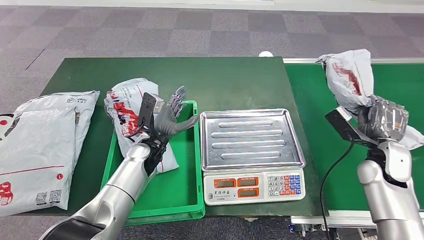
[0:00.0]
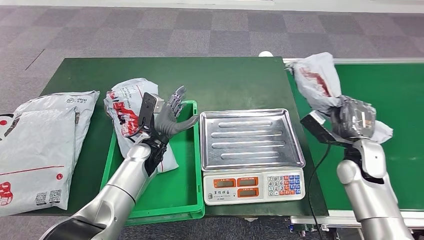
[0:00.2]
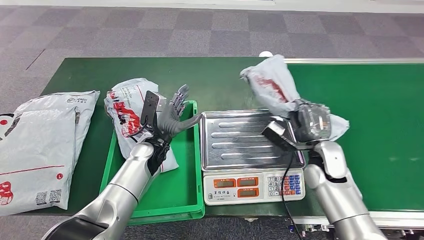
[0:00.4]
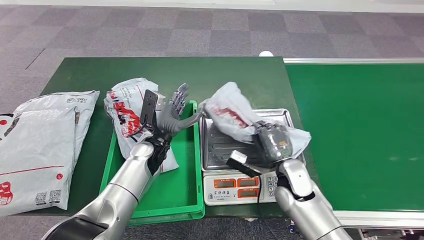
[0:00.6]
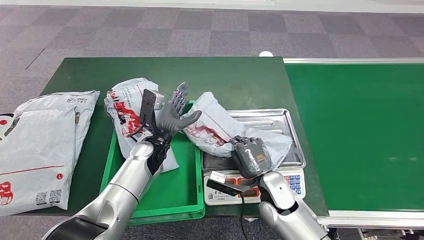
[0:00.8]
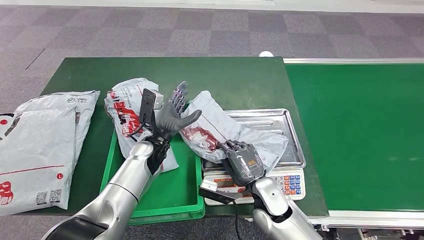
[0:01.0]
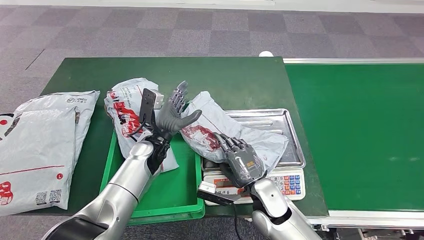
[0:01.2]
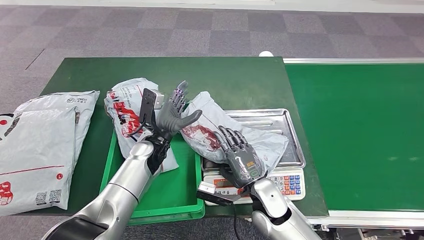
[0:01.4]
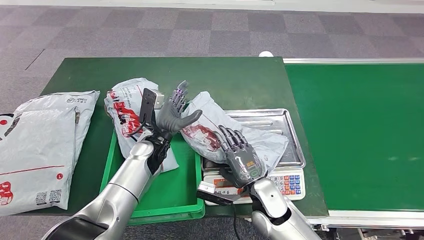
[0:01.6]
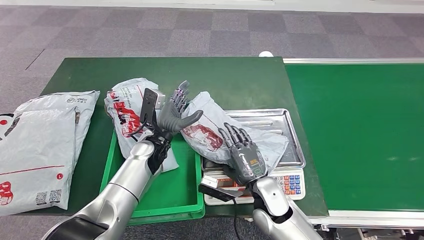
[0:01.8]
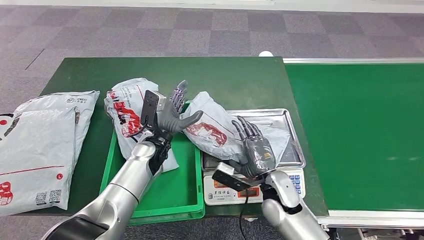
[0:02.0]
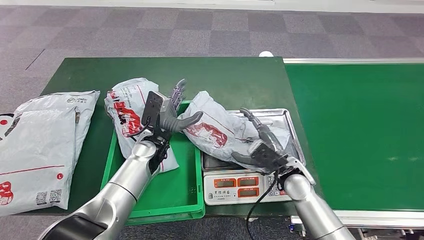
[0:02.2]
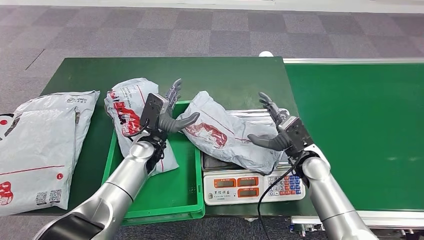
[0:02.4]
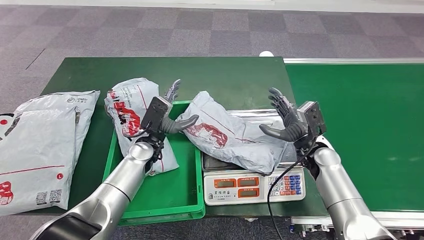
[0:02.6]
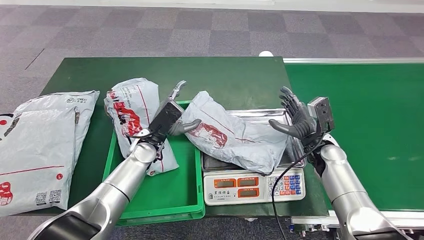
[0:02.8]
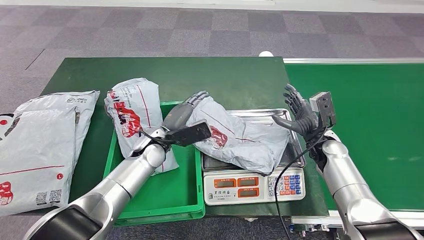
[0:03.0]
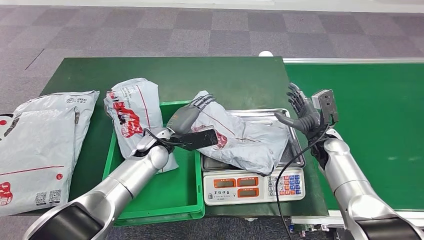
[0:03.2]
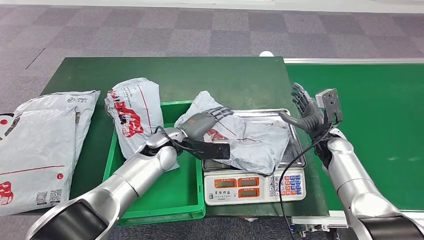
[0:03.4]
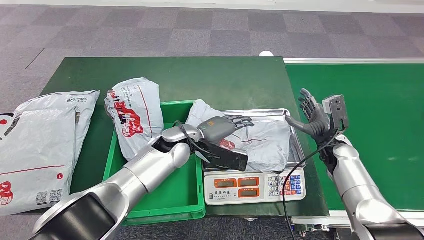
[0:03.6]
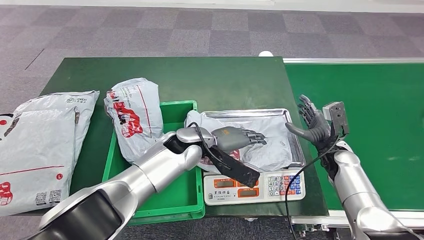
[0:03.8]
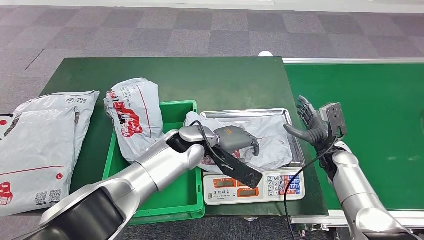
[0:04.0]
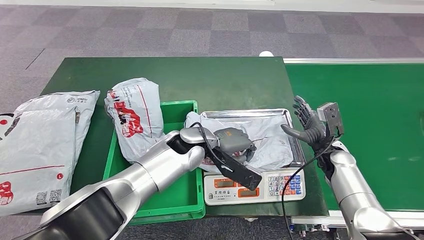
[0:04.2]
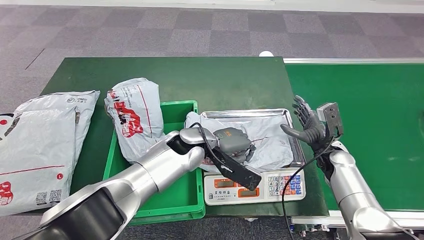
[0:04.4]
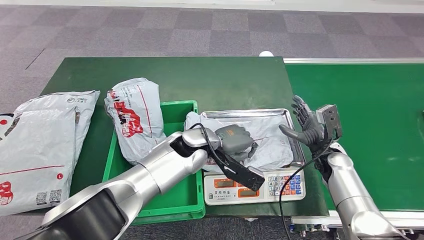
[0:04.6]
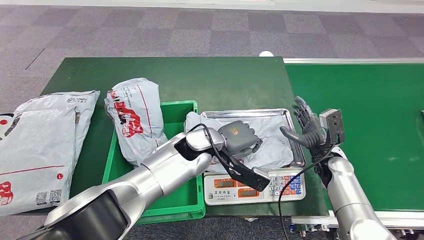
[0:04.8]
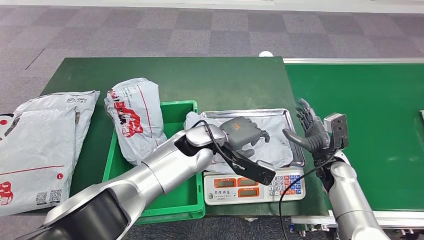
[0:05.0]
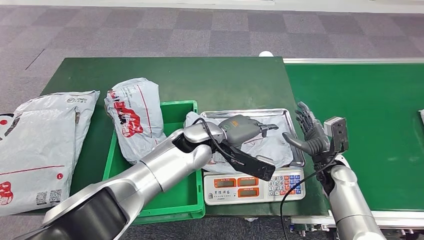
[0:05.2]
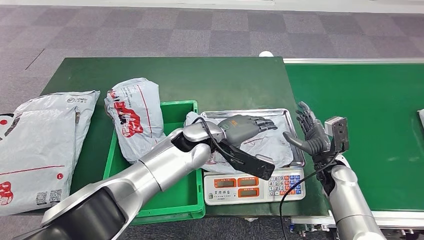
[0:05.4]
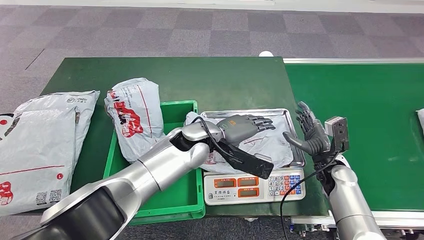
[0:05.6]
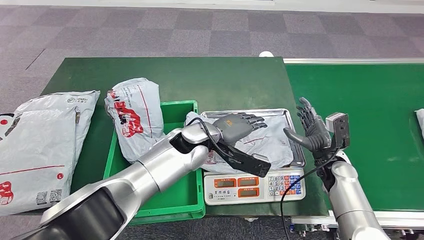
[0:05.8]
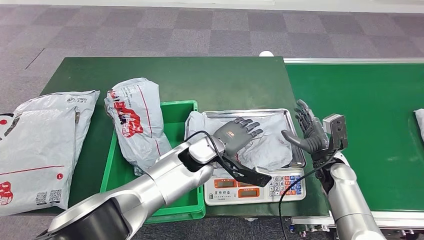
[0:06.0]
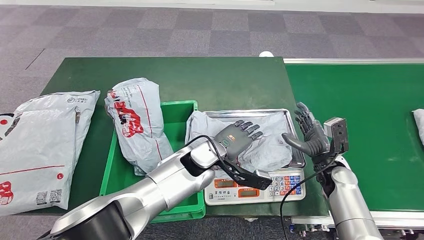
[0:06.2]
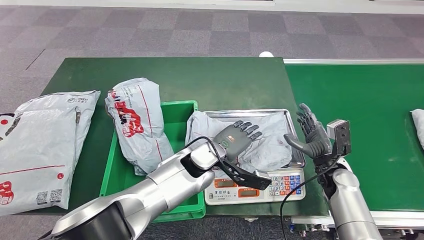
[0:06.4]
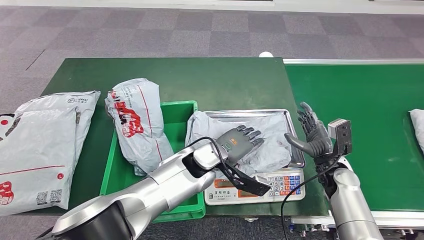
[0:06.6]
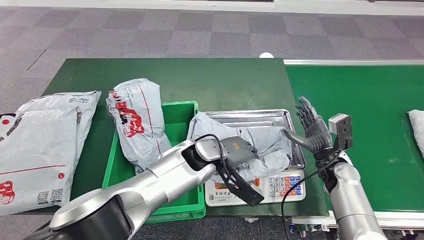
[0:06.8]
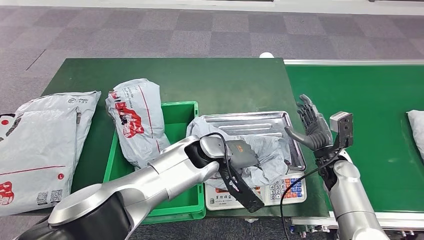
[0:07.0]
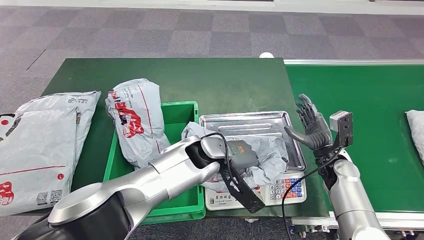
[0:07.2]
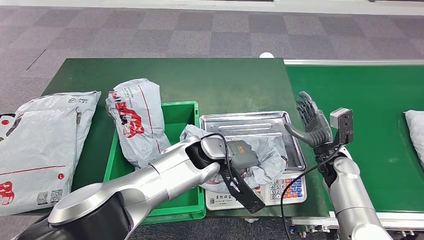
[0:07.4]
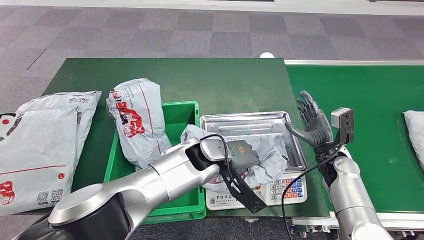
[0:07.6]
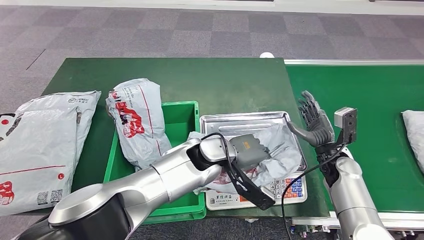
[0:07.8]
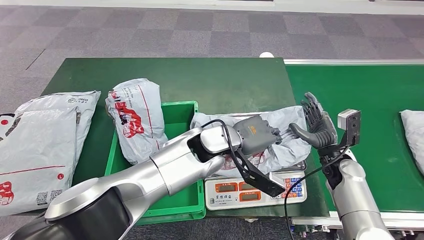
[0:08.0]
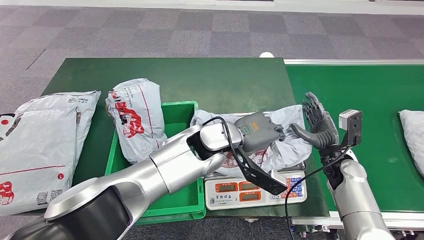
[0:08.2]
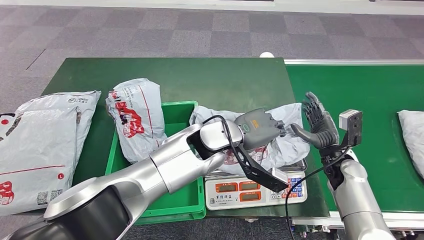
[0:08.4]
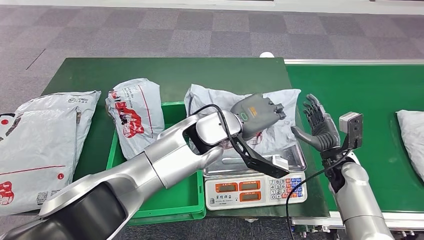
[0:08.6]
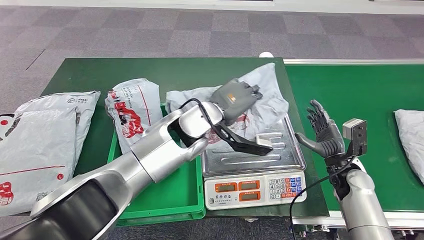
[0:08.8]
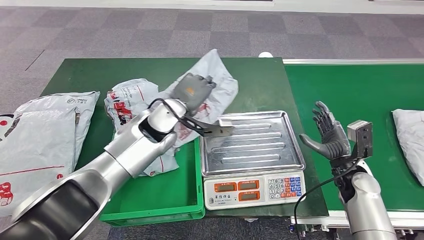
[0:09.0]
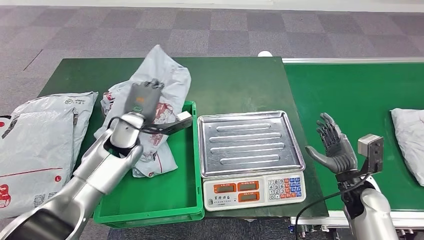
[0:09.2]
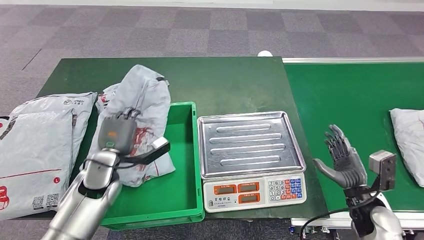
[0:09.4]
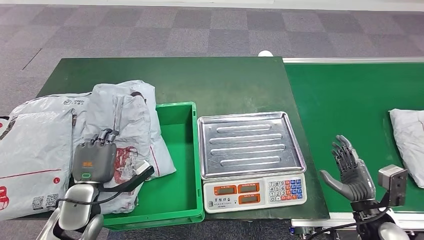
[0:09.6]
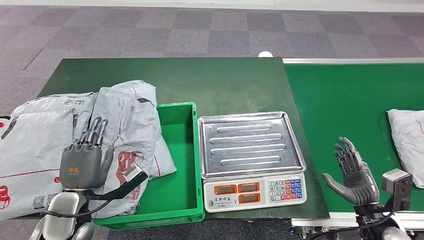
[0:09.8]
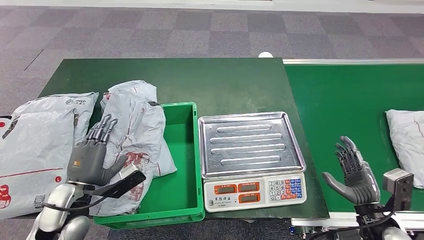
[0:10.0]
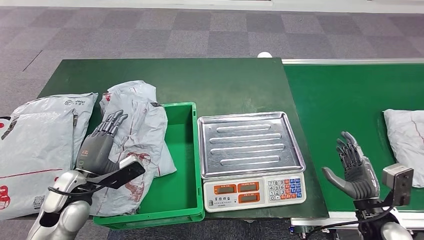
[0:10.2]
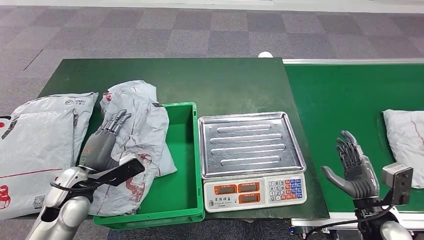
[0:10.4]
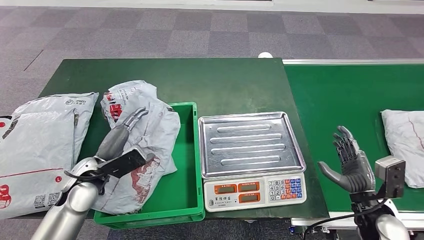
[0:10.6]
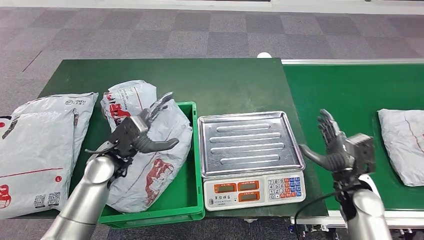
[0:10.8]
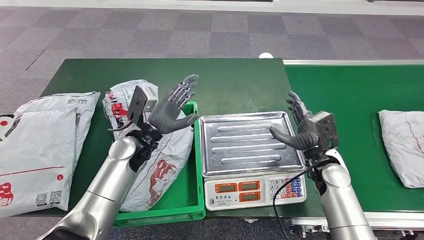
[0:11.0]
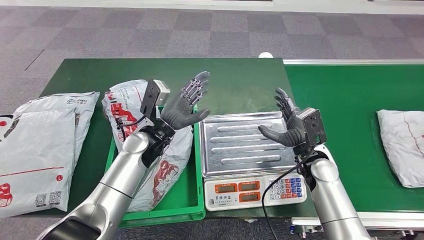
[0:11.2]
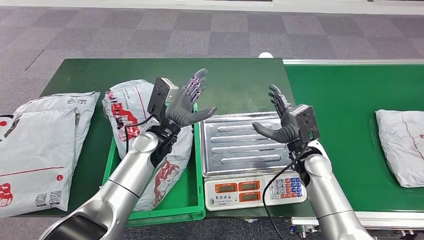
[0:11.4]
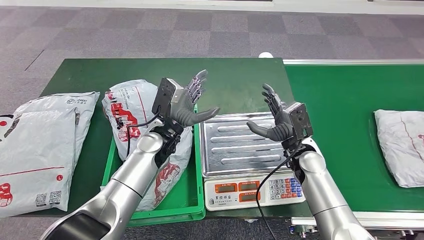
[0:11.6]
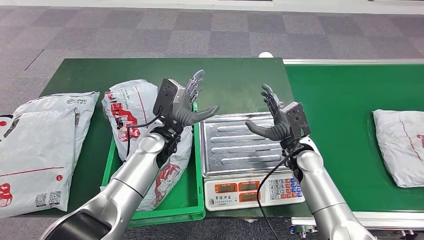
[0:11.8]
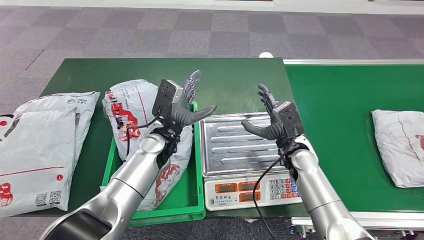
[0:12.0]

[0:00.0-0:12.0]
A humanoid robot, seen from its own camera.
Step, 0.0 to 1.6 s: Place the parcel onto the inbound machine.
Step, 2.0 to 9.0 s: Pick up the parcel from the inbound machine.
Step, 9.2 to 11.0 s: Place the parcel into the delivery box.
3.0 to 4.4 s: The left hand is displaced to the right by roughly 10 cm.

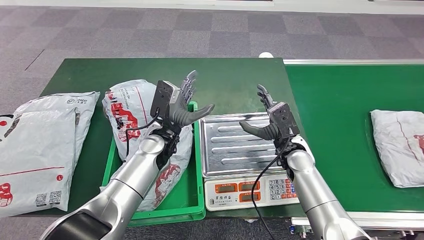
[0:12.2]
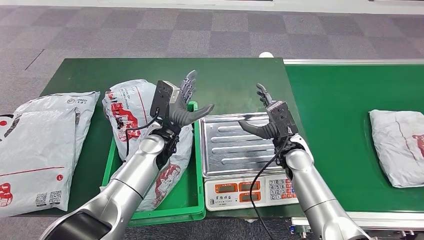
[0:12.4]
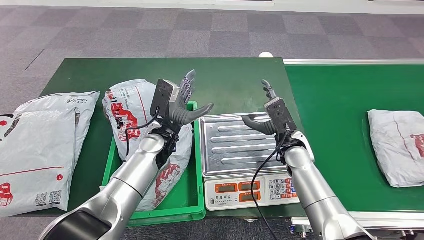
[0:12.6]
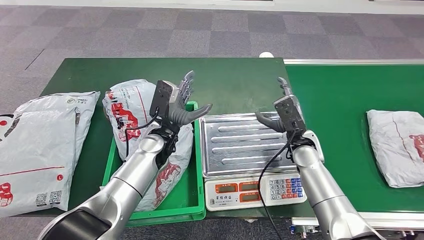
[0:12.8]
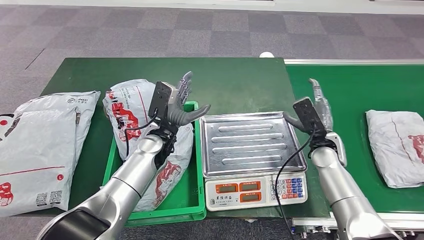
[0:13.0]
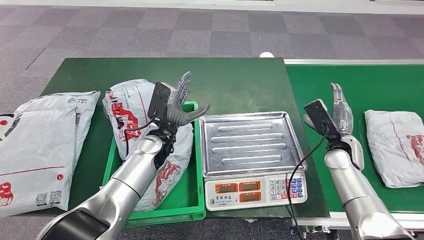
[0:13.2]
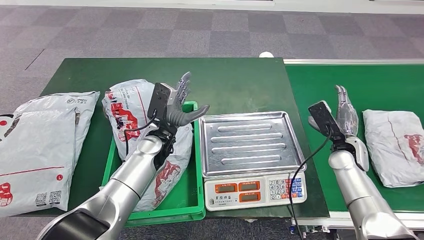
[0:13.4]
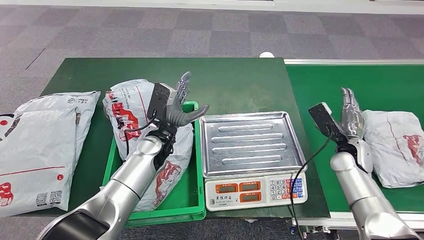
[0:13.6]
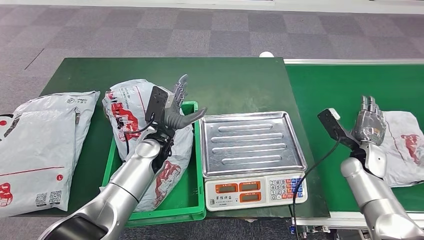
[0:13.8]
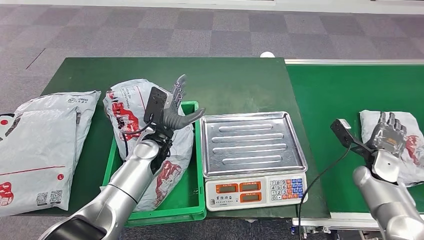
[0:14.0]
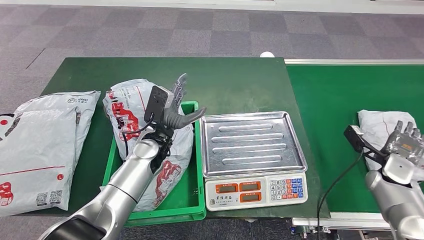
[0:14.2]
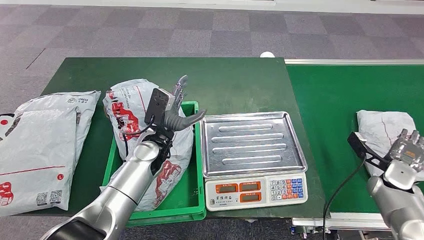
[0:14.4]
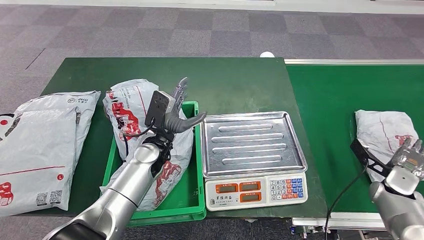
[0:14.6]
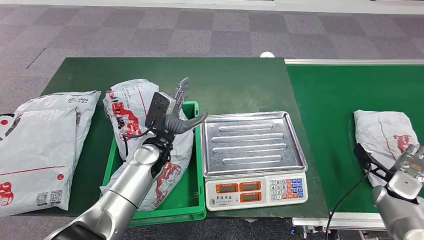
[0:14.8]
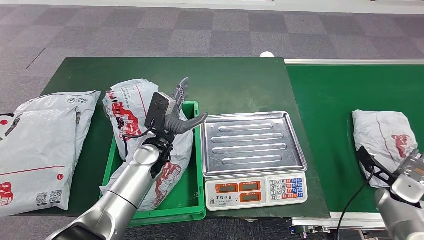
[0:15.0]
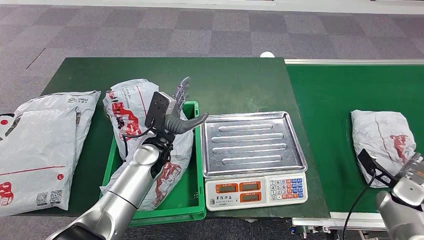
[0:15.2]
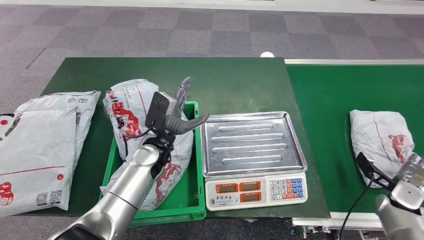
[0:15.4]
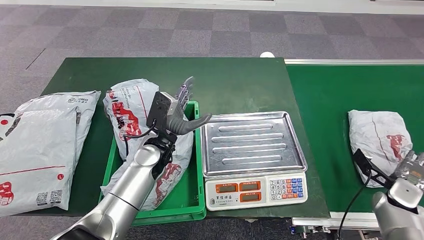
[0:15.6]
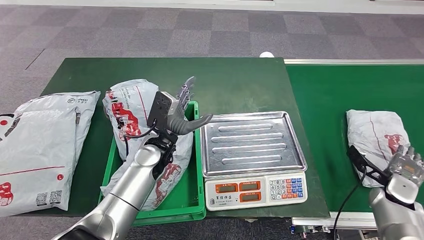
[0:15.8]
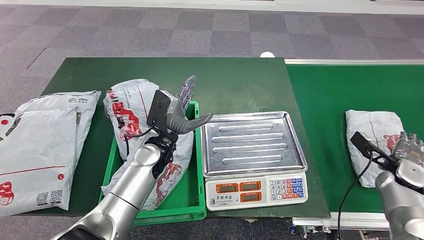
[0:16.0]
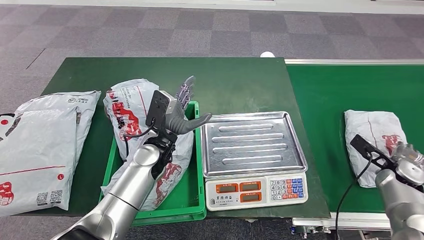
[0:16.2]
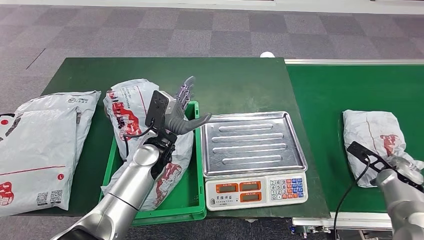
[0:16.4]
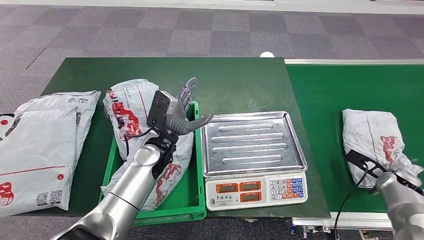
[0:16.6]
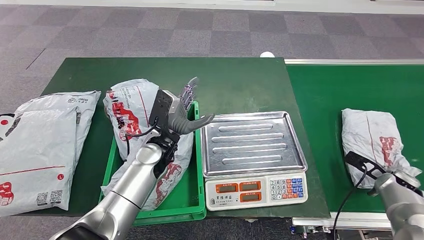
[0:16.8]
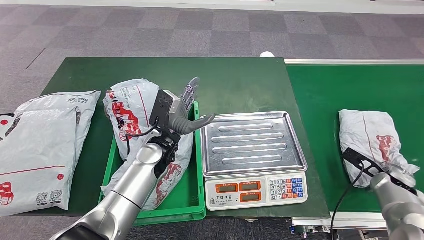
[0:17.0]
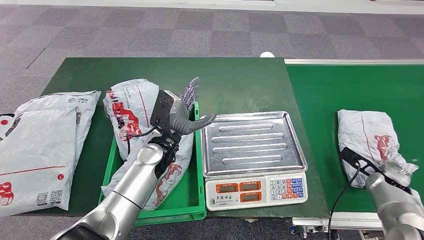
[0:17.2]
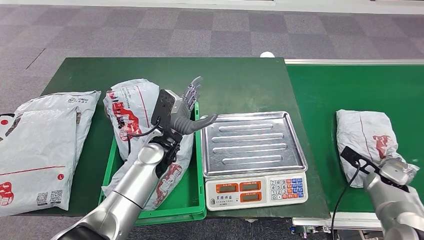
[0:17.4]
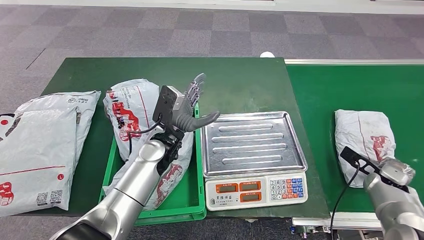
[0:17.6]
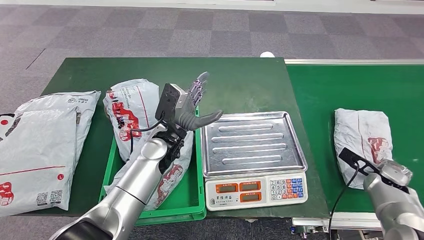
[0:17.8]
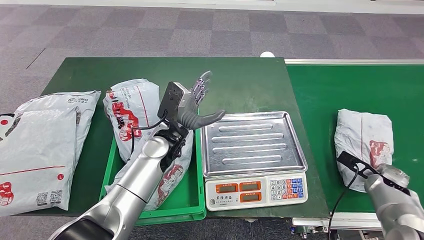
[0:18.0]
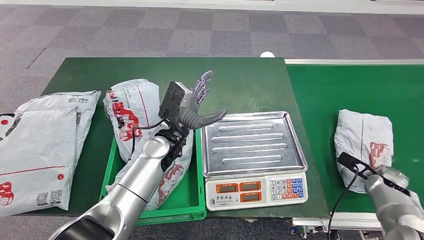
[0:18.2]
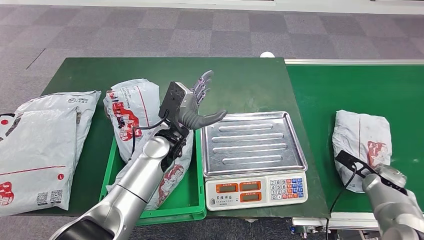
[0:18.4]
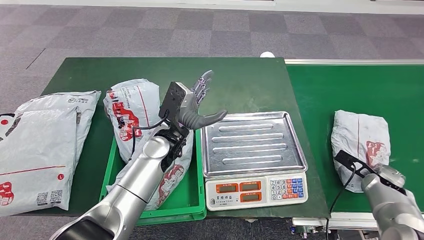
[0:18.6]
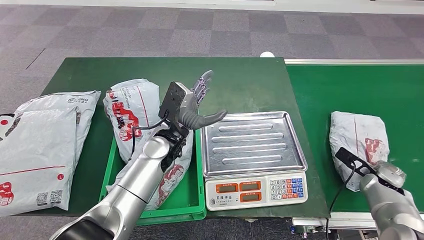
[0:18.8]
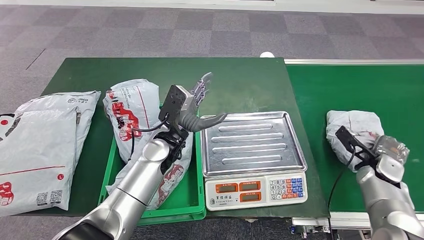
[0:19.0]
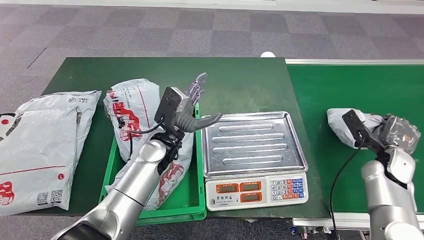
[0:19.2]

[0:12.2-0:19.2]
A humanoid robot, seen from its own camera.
12.2 to 13.6 s: The right hand travels to the right by some 15 cm.
13.6 to 15.0 s: The right hand moves to the right, backward and downward, roughly 15 cm.
16.4 to 17.8 s: There are only small adjustments of the hands.
17.8 to 19.2 s: The right hand goes about 5 cm upward.
